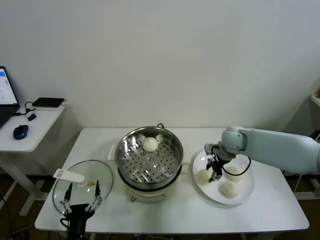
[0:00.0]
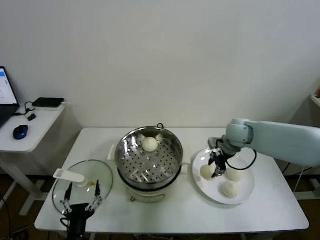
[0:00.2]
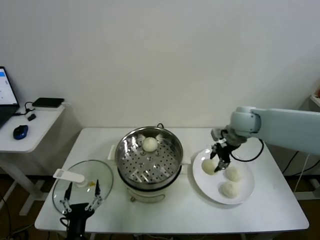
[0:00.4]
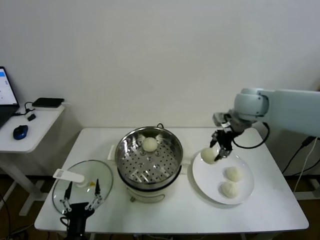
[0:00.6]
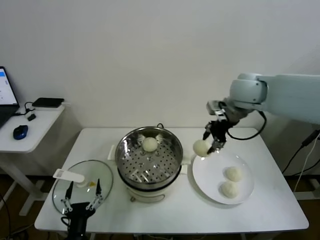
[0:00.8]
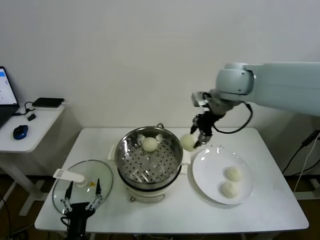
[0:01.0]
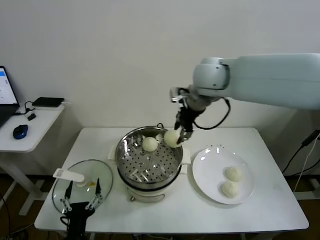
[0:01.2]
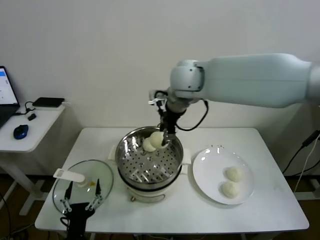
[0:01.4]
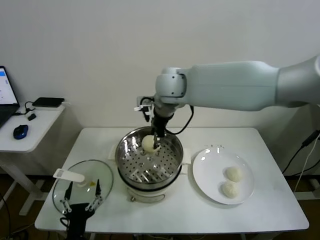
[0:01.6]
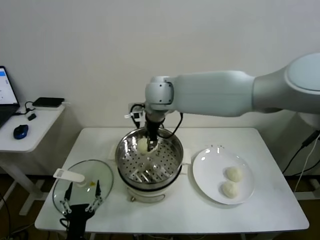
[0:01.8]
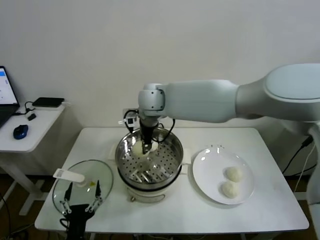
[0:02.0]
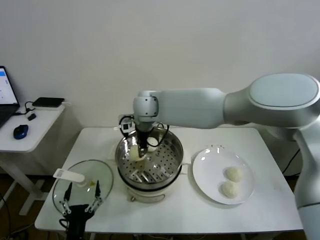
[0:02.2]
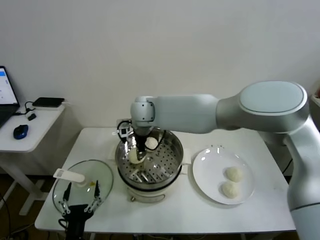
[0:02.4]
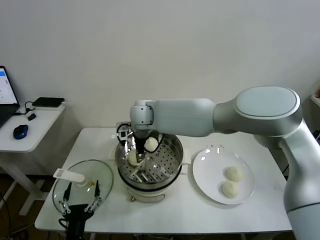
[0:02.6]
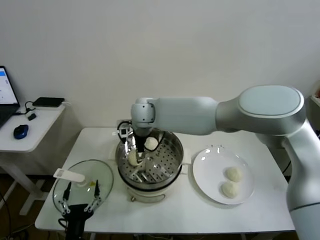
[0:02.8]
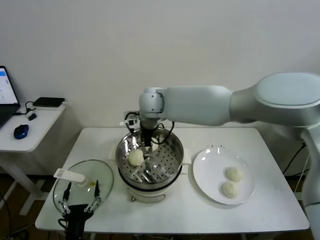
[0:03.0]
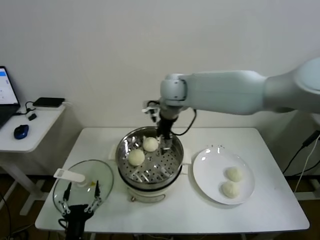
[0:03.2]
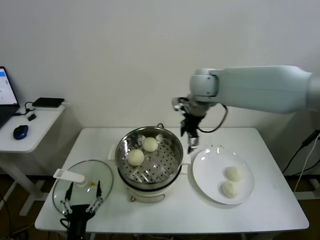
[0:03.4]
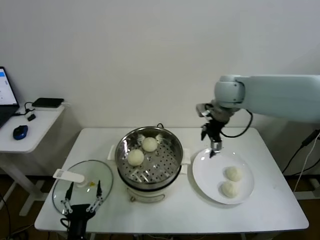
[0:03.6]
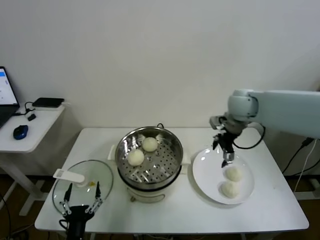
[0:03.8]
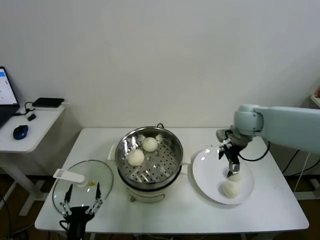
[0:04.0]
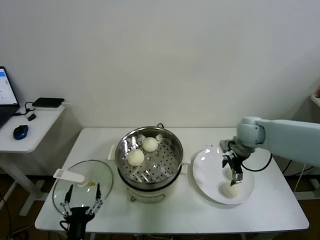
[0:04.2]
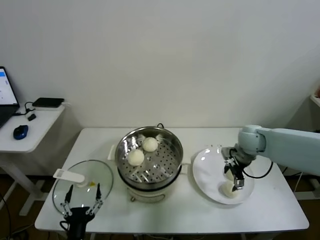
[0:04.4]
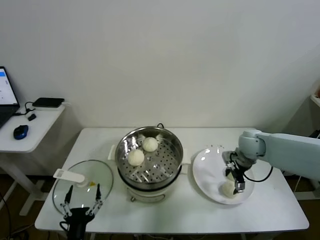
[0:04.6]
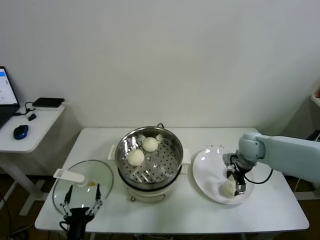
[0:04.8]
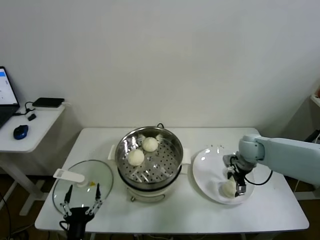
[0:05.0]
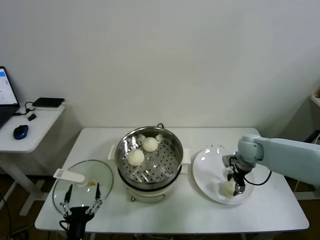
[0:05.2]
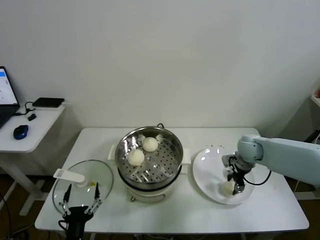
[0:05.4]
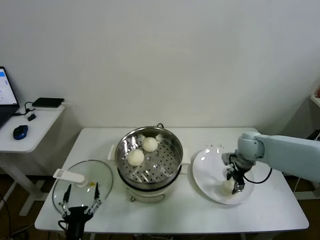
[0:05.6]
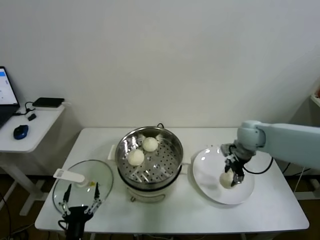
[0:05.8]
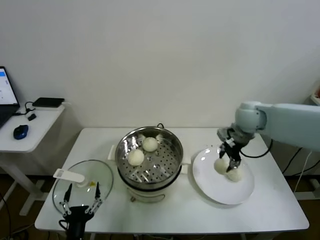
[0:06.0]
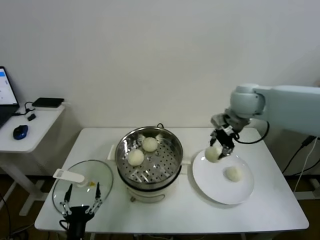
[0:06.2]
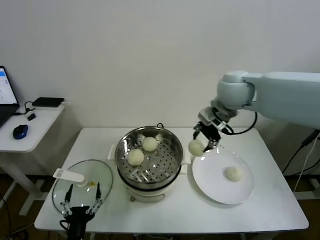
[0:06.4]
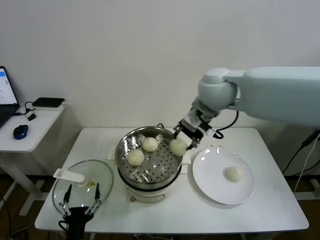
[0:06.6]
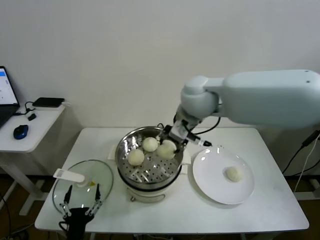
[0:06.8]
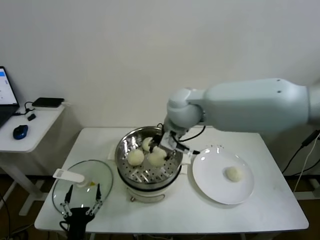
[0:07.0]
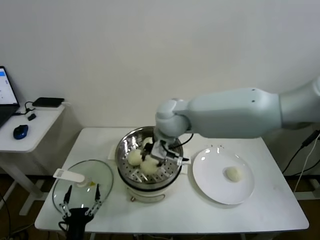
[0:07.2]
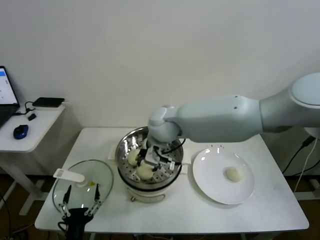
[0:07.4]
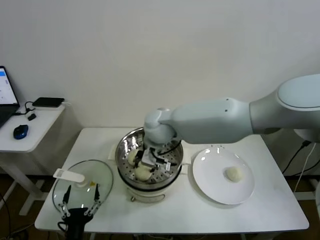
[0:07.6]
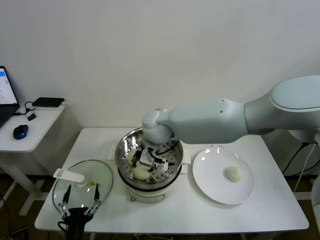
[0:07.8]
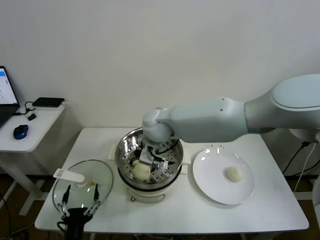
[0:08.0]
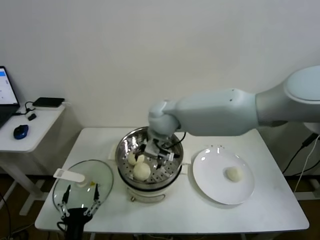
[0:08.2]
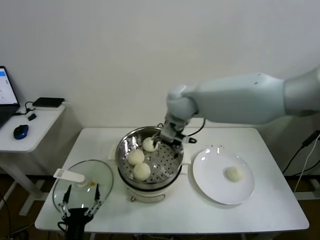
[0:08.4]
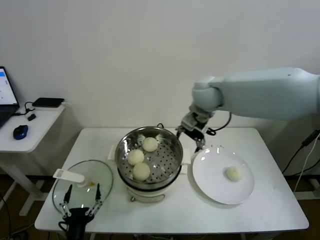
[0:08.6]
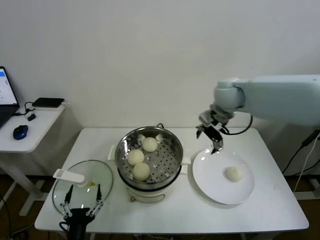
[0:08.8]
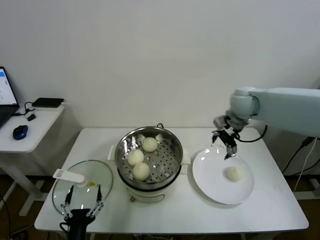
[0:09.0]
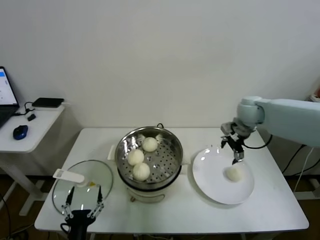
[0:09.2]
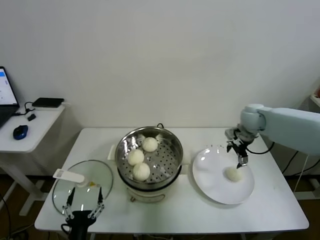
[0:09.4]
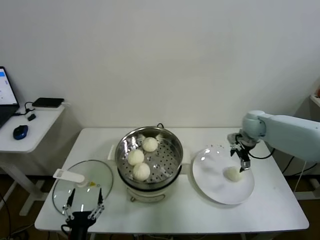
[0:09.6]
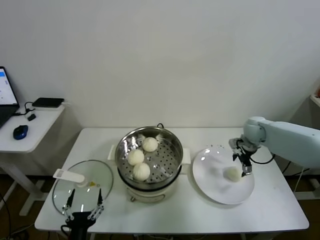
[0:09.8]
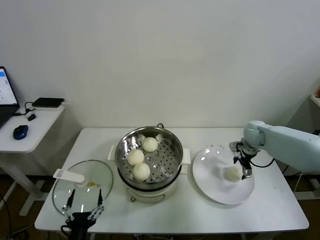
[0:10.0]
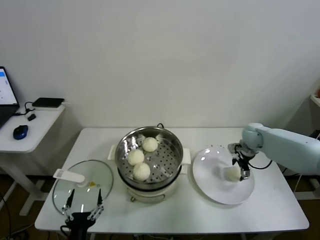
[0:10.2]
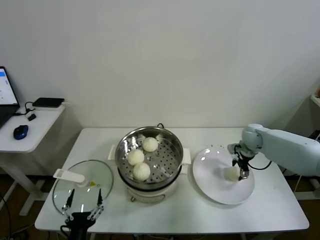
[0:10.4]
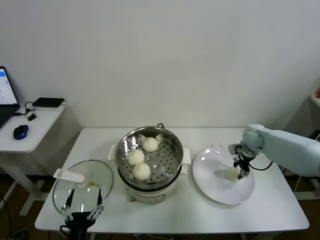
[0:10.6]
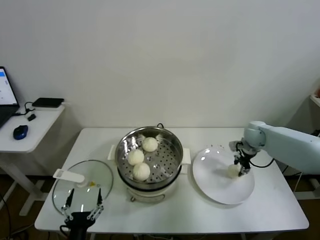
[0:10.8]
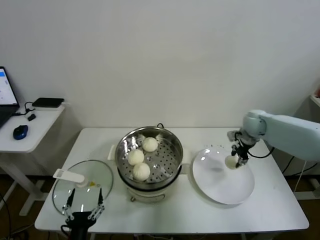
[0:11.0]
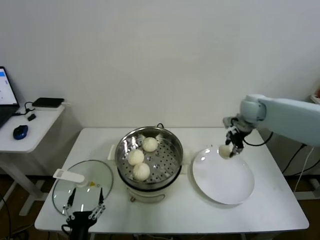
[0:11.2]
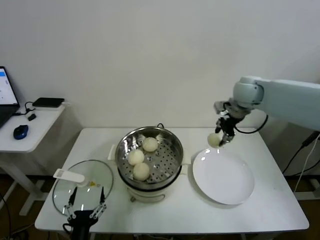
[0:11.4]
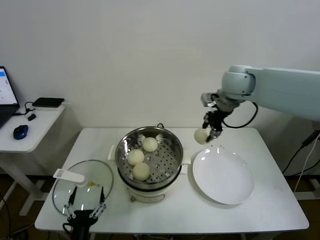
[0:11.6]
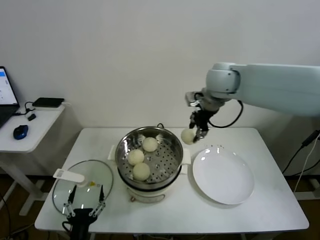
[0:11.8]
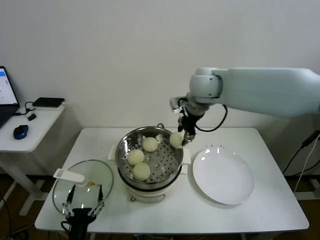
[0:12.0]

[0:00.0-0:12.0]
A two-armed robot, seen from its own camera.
Task of the whole recording: take steamed baozi put them in steamer.
Step, 0:00.0 to 0:02.8: Place the baozi on the steamer with right gripper.
Step, 0:03.0 to 0:05.2: Grasp the baozi in the plate with right gripper.
Step, 0:05.6 to 0:08.0: Place the baozi on the steamer with right gripper.
Step, 0:08.2 to 0:11.0: Grasp the baozi in the plate with right gripper.
0:00.0 to 0:01.6: The right gripper travels to the left and upward by some 35 cm.
0:01.6 to 0:03.0: The right gripper goes some 5 cm downward, and opens up.
0:03.0 to 0:04.4: The right gripper goes about 35 cm to the right and downward.
0:04.4 to 0:06.0: The right gripper moves upward, about 10 cm, and closes its fingers.
0:06.0 to 0:07.6: The right gripper moves to the left, roughly 30 cm.
0:07.6 to 0:09.0: The right gripper travels to the right by approximately 30 cm, and opens up.
0:09.0 to 0:10.4: The right gripper is displaced downward and to the right by approximately 20 cm.
0:10.4 to 0:12.0: The right gripper shifts about 35 cm upward and to the left, and closes up.

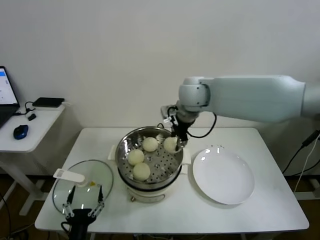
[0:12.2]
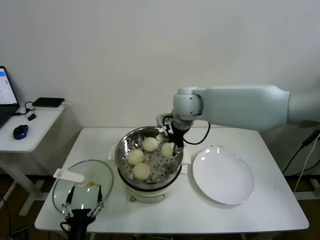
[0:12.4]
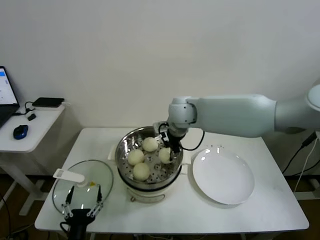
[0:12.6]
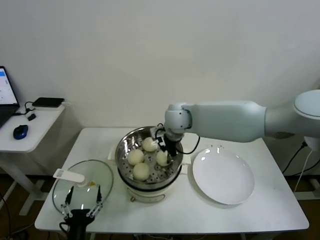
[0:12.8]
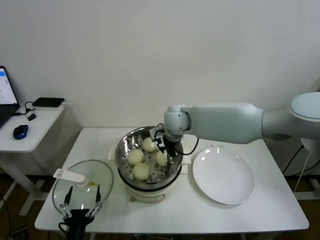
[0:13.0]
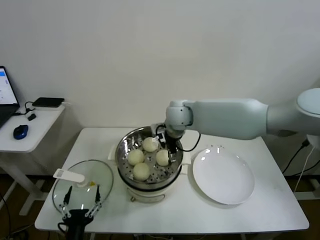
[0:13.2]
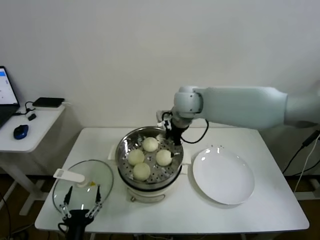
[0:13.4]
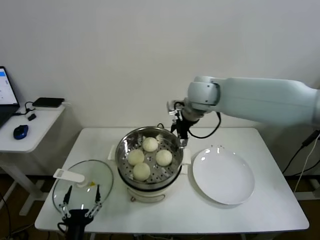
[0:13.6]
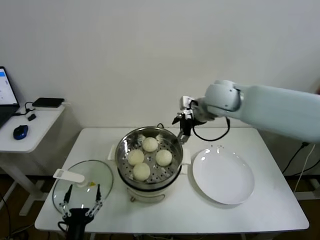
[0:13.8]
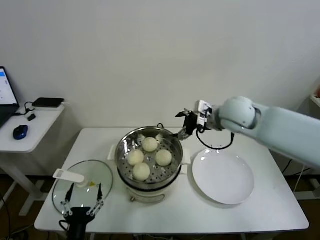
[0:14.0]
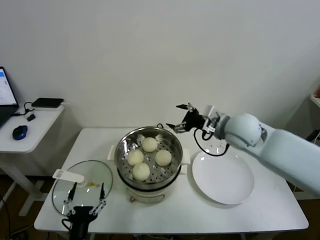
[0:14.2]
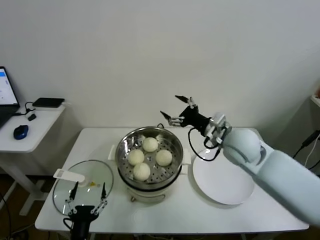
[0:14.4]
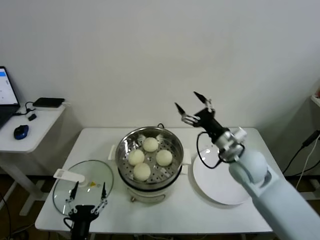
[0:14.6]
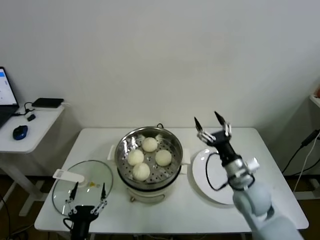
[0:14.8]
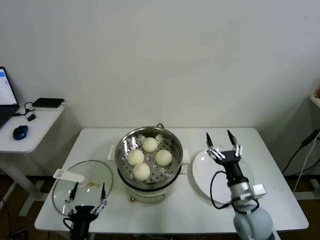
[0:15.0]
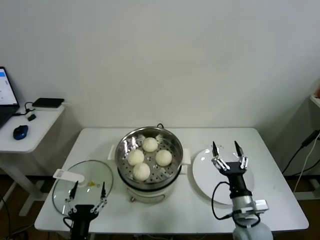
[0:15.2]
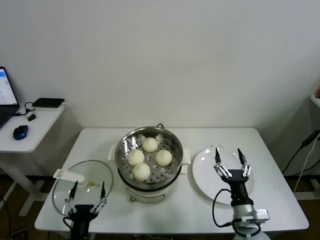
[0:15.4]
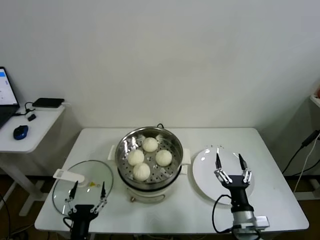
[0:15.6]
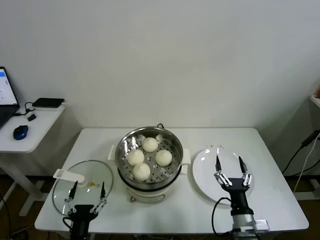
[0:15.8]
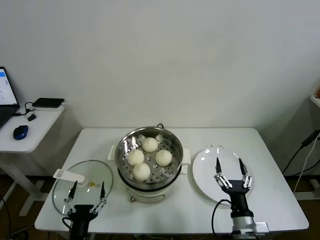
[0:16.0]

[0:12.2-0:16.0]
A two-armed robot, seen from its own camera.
Task of the whole recording: take steamed baozi put them in steamer.
0:12.2 to 0:13.4: The right gripper reaches about 10 cm downward, then returns, and opens up.
0:13.4 to 0:14.8: The right gripper goes roughly 35 cm backward, downward and to the right.
0:14.8 to 0:16.0: The right gripper goes about 15 cm backward and downward.

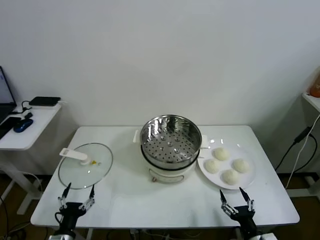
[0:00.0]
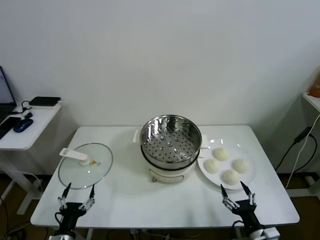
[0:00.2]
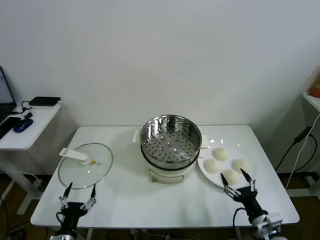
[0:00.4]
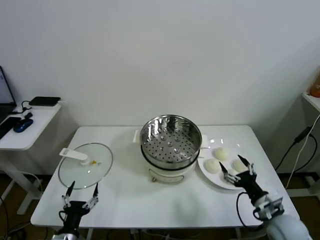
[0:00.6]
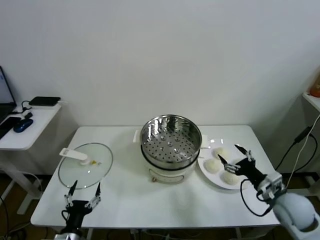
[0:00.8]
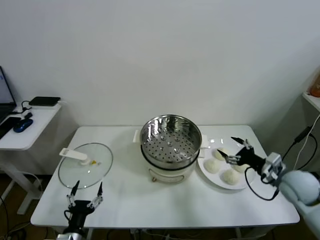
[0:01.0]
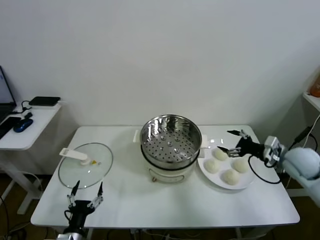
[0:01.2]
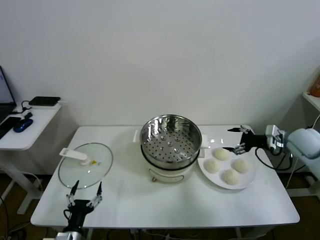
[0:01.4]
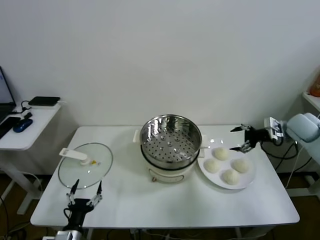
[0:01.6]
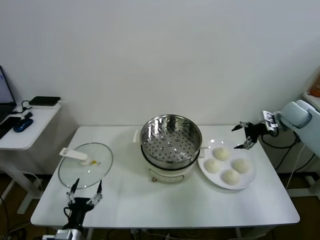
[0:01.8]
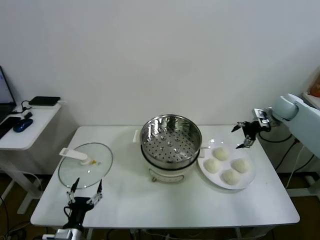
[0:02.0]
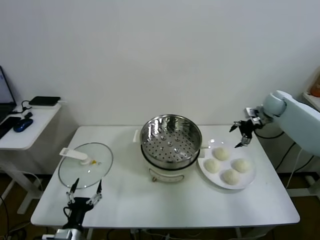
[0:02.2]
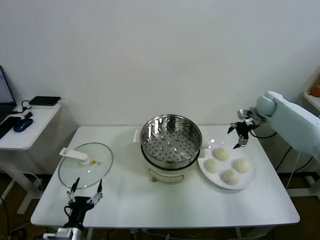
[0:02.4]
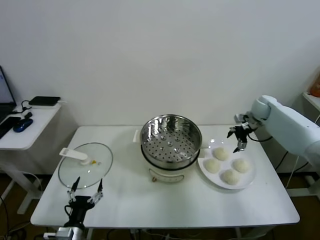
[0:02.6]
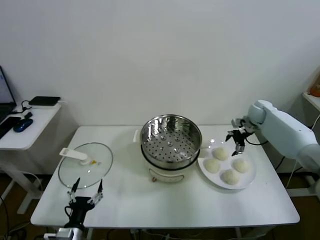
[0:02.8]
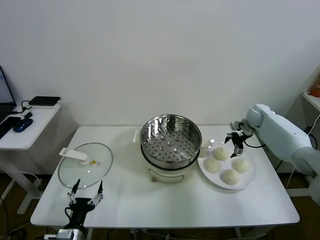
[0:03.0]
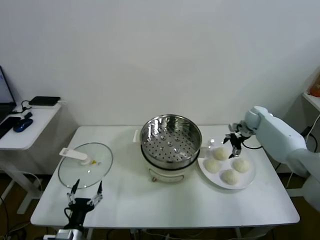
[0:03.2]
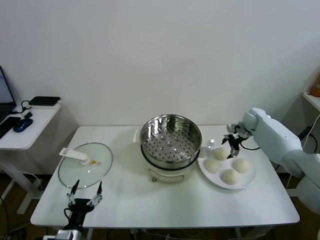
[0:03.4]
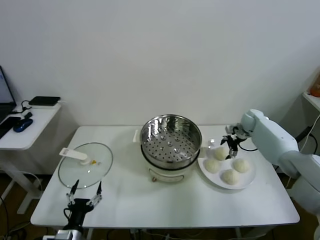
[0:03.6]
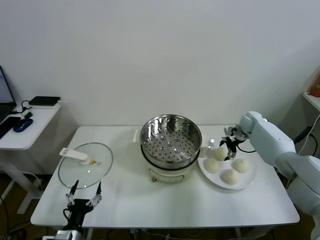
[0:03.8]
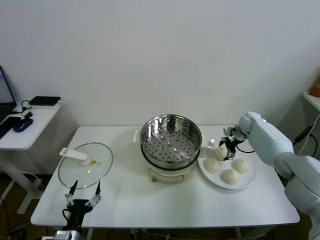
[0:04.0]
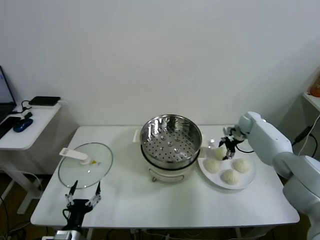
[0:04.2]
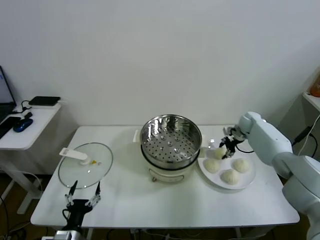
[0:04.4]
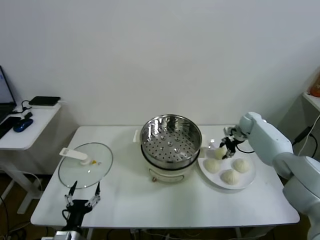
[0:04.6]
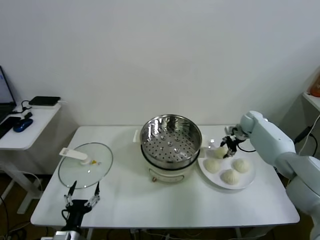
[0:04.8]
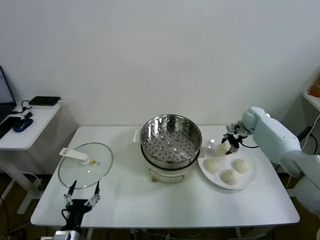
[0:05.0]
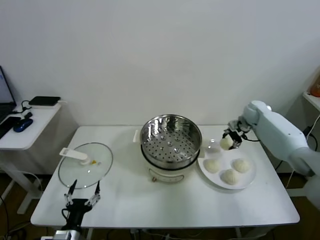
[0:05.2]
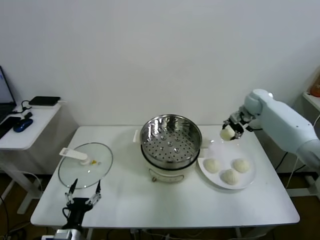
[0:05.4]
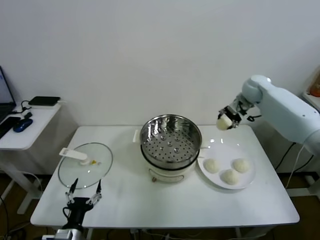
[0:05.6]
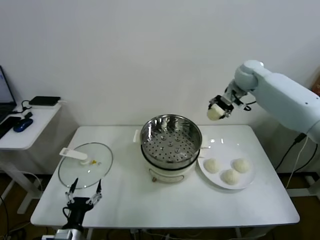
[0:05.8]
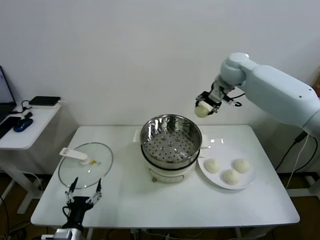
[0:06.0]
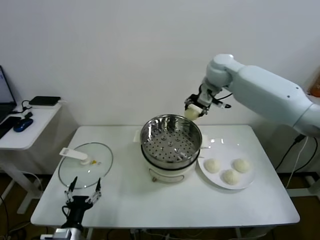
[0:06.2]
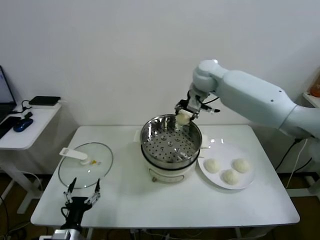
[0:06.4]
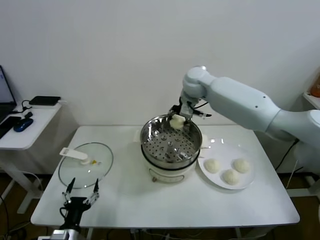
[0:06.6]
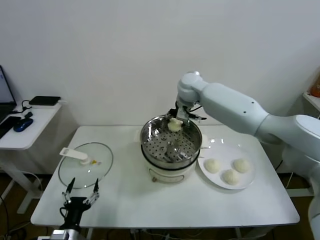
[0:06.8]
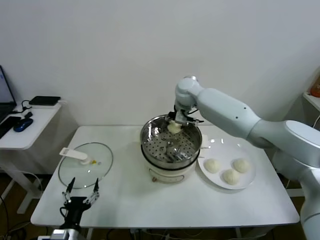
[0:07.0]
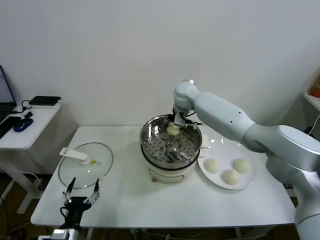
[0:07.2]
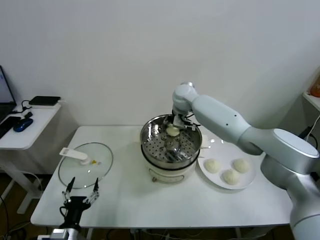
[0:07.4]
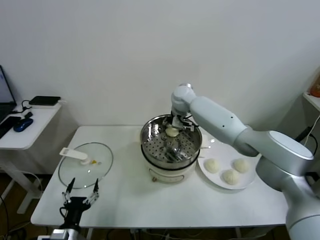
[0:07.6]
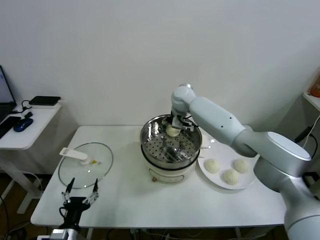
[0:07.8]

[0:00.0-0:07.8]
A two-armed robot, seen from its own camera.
Task of the whole recording: take steamed baozi put them in steamer.
Step, 0:00.0 to 0:04.6: Grasp the baozi in the plate with right gripper.
0:01.6 to 0:03.2: The right gripper goes approximately 15 cm forward, downward and to the left.
0:03.2 to 0:04.6: The right gripper closes.
0:04.6 to 0:06.2: The right gripper shifts roughly 35 cm upward and to the left.
0:06.2 to 0:07.8: The right gripper heads downward and to the left, covering approximately 15 cm, and opens its fingers.
